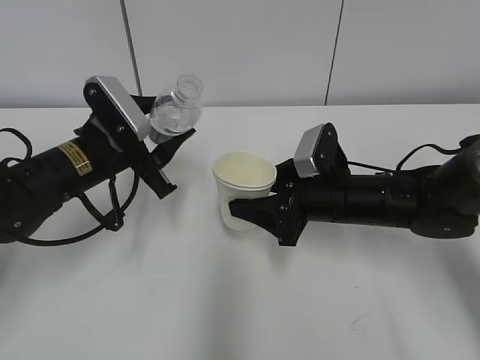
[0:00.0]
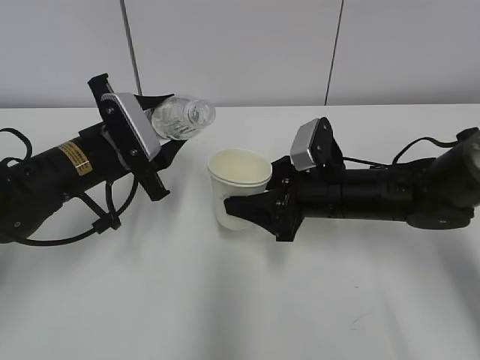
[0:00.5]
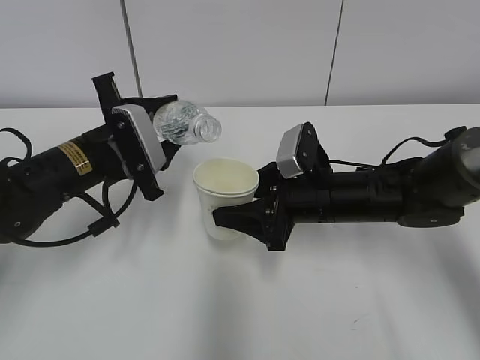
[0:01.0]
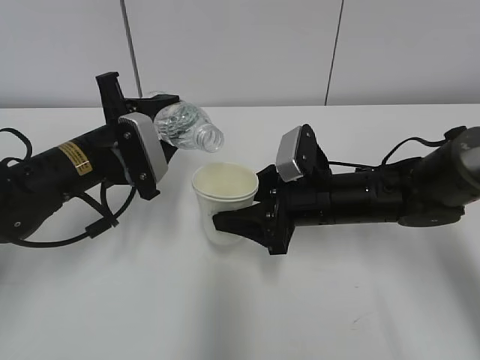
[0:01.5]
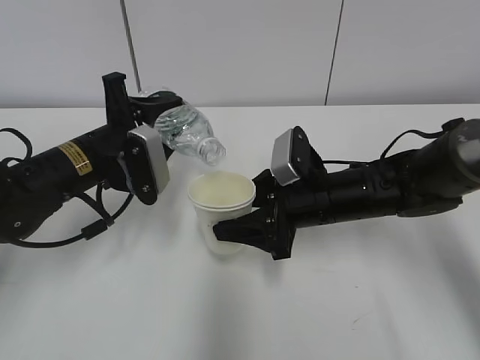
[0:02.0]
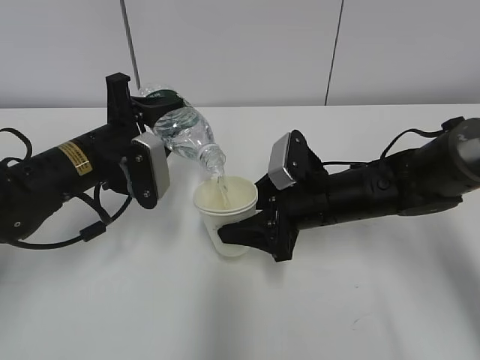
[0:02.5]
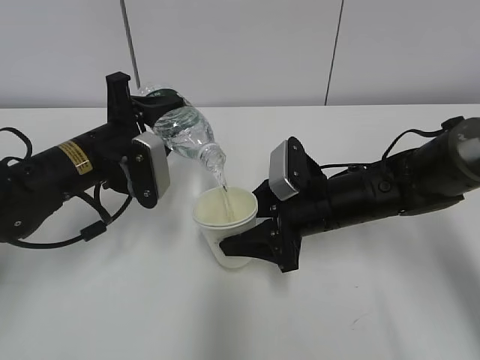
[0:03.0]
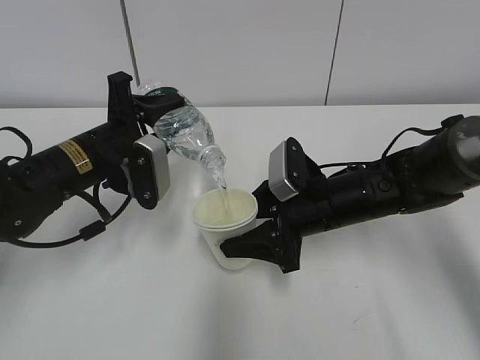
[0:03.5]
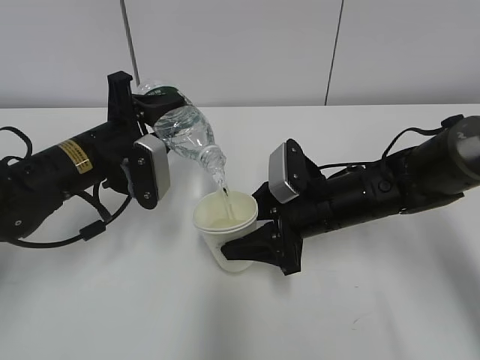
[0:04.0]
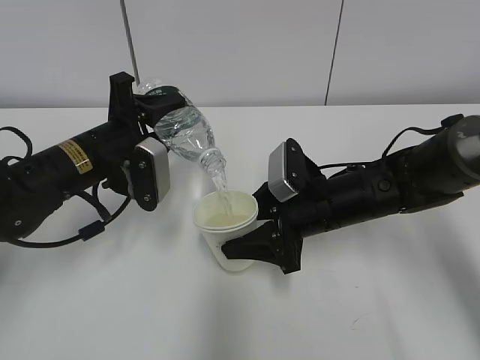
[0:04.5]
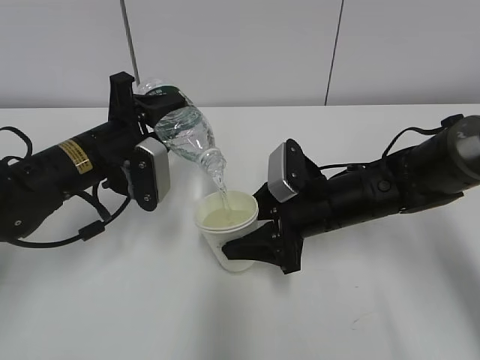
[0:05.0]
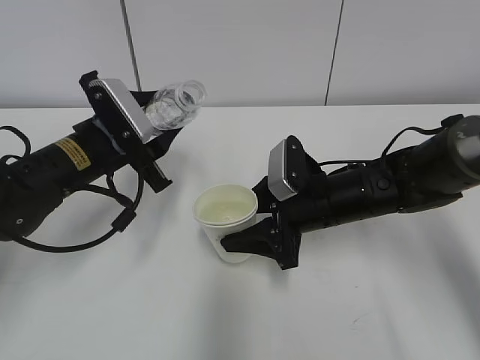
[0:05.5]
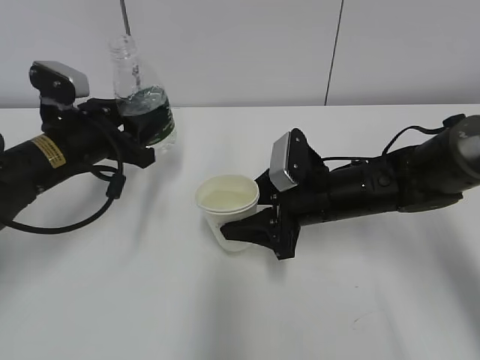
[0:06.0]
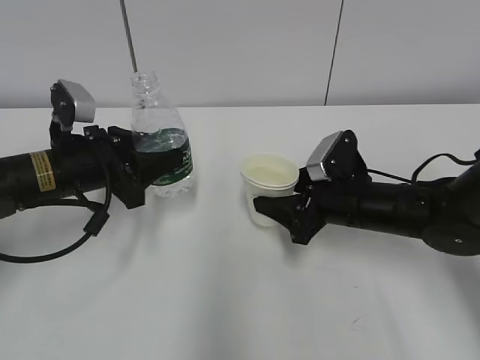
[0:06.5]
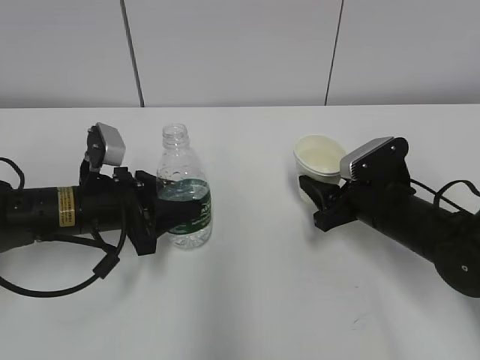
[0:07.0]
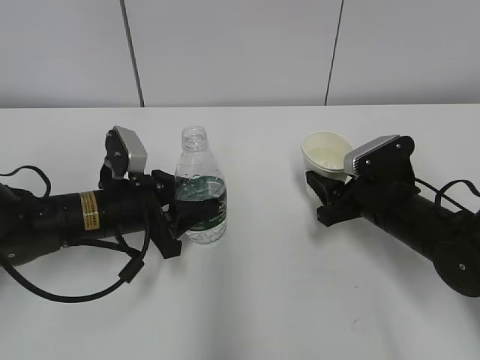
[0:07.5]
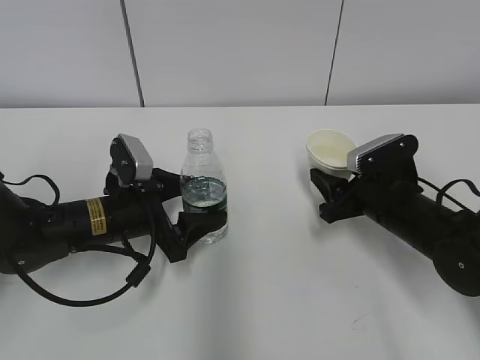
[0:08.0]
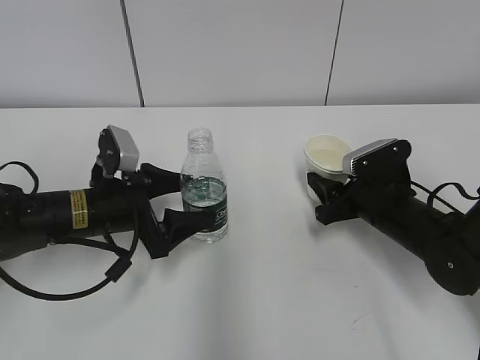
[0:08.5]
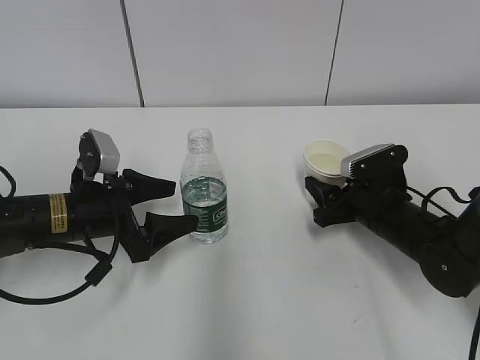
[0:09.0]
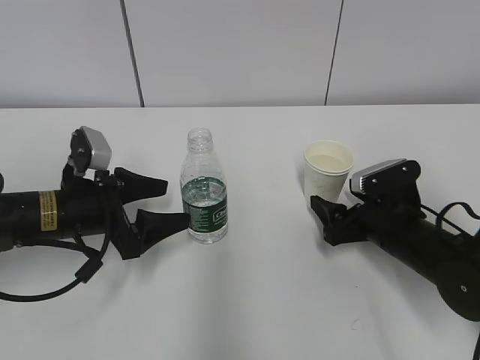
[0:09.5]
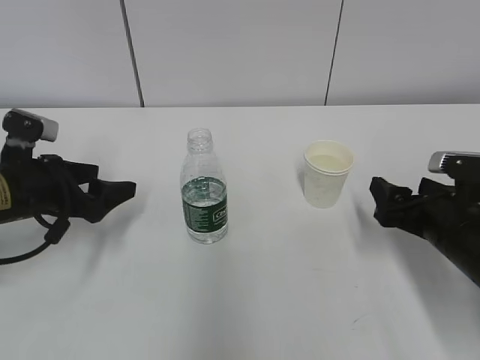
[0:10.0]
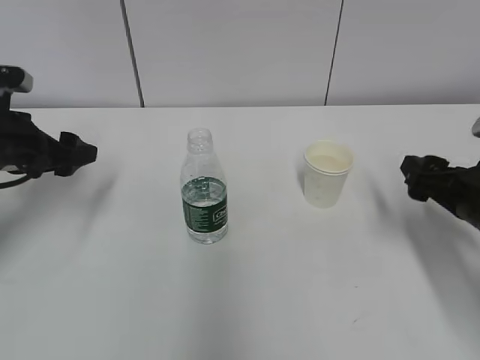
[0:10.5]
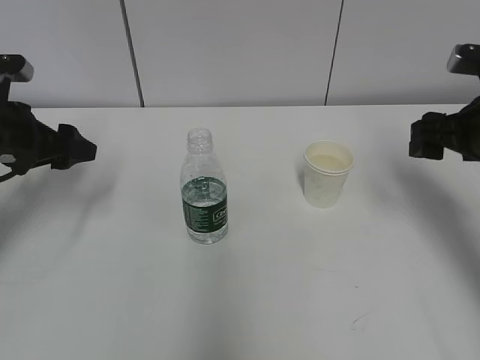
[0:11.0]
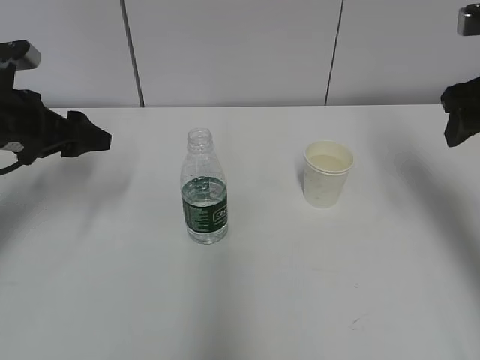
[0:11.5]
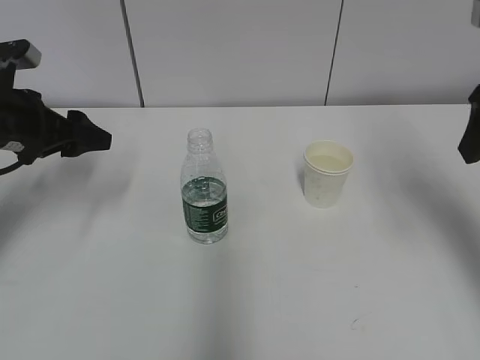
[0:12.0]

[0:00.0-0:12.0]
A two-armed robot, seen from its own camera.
Step, 0:00.0 to 0:02.0: Fill water with the right hand.
Step, 0:03.5 to 0:04.5: Place the water bottle with the left hand.
Step, 0:05.0 to 0:05.5: Place the paper cup with the right hand.
0:02.0 to 0:04.0: The grippers stay close to where they were, moving slightly.
0:06.0 to 0:08.0: The left gripper goes approximately 10 cm downward, and opens its fingers; the right gripper goes approximately 10 cm to the right.
0:08.0 to 0:10.0: The left gripper heads to the left, covering about 10 cm; the right gripper goes approximately 5 cm backward, and opens.
0:10.0 to 0:12.0: The right gripper goes some 20 cm upward, and closes. Meanwhile the left gripper travels upward by some 10 cm.

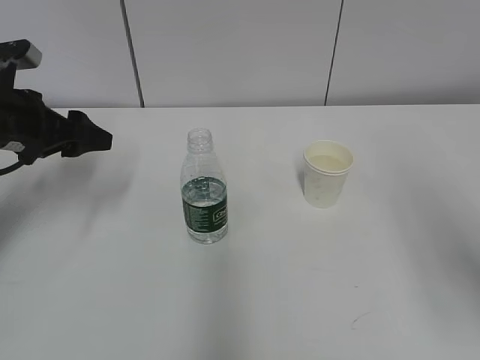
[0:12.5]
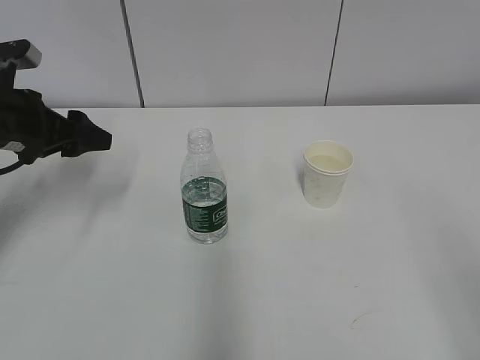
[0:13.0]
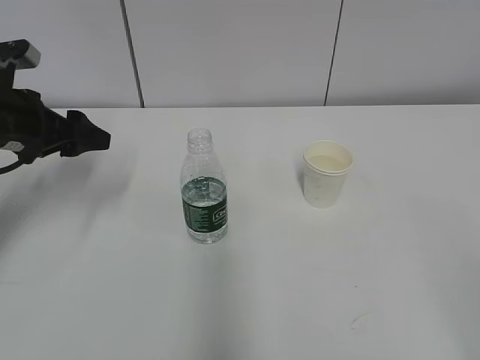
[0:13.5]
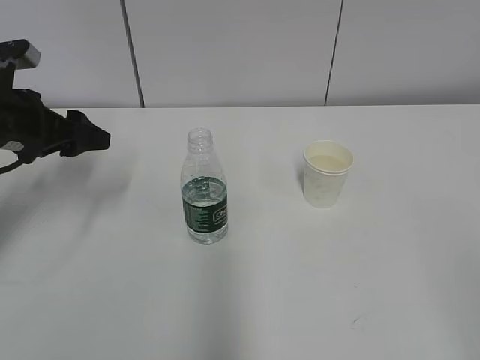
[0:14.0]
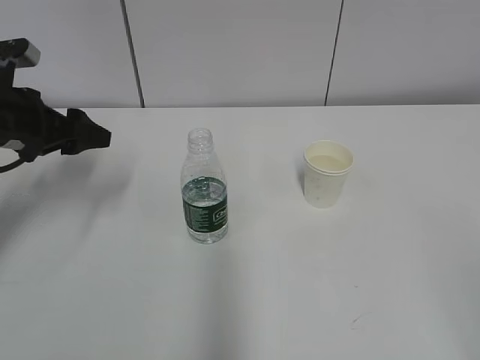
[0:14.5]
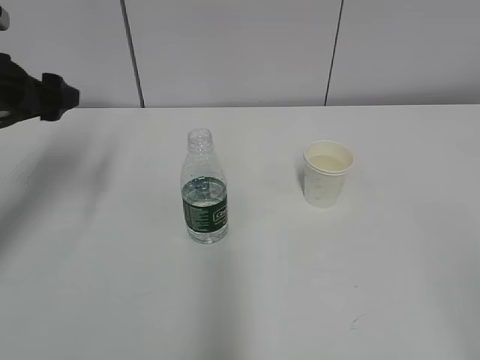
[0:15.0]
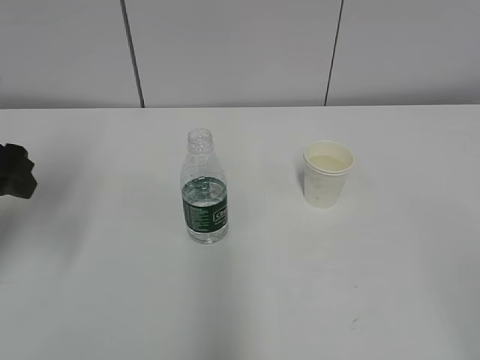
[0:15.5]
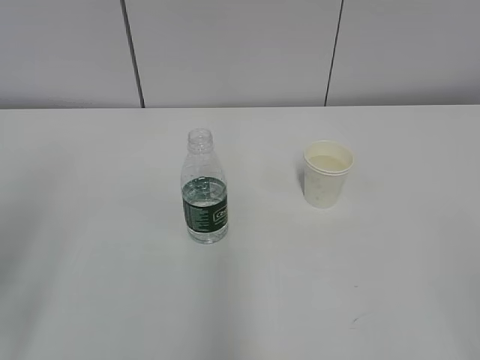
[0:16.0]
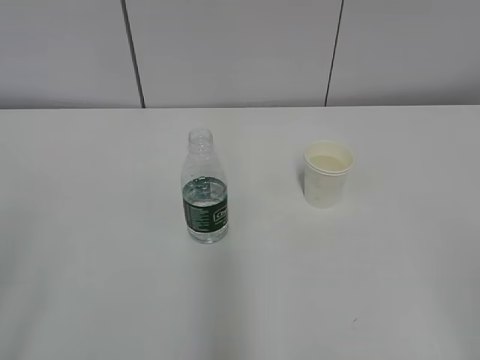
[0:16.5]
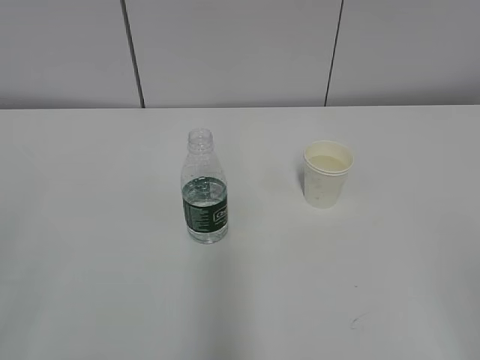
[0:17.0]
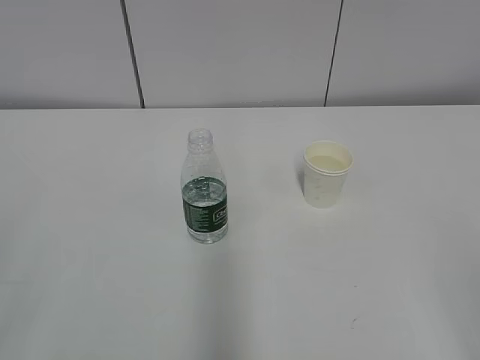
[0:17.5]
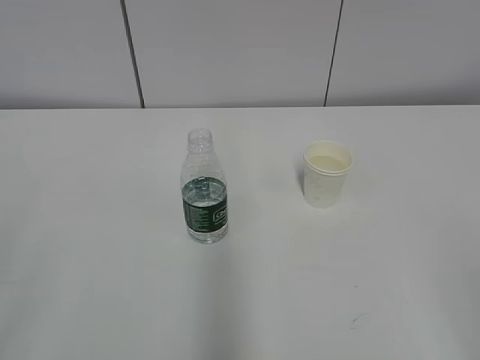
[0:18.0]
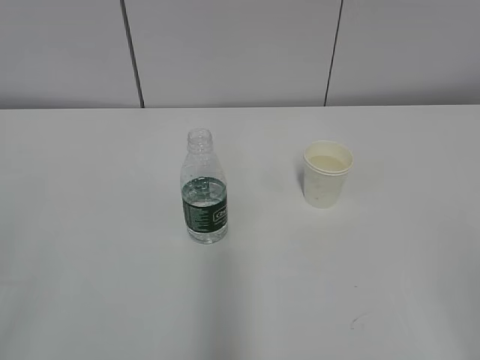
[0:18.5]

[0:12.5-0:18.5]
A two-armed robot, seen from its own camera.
0:12.5 to 0:14.5: The right gripper moves backward, approximately 15 cm.
0:14.5 to 0:16.5: The left gripper heads backward, covering about 30 cm.
